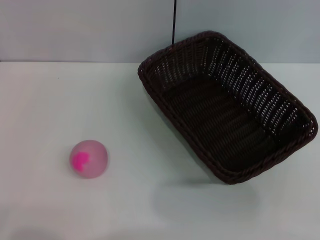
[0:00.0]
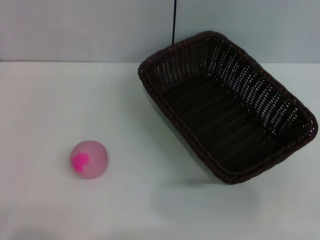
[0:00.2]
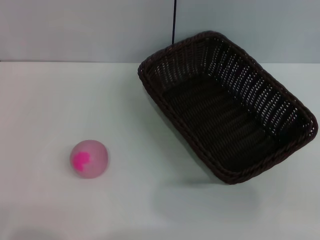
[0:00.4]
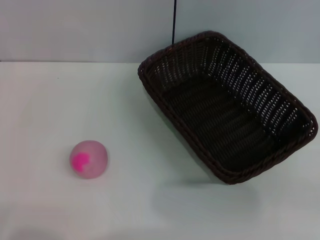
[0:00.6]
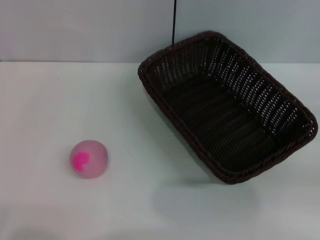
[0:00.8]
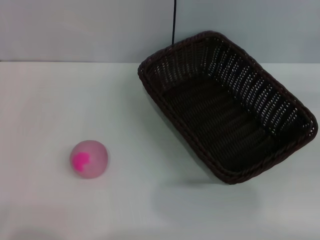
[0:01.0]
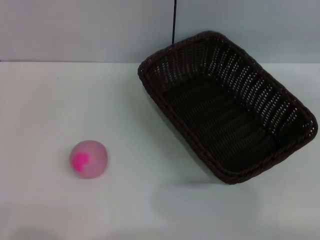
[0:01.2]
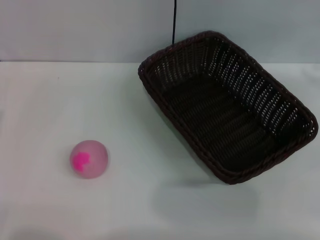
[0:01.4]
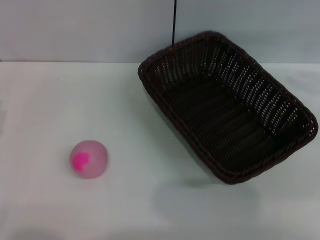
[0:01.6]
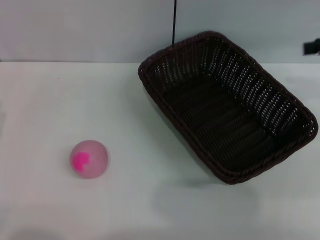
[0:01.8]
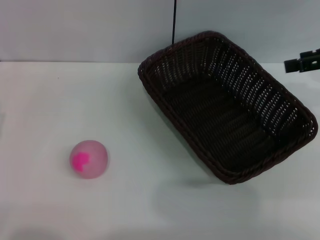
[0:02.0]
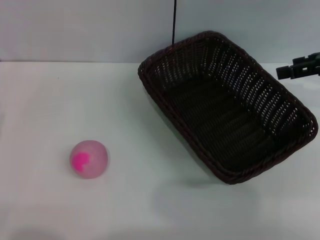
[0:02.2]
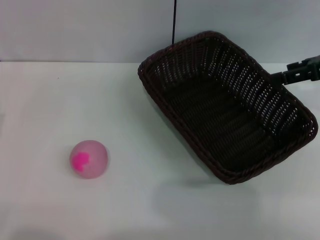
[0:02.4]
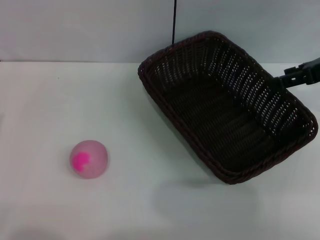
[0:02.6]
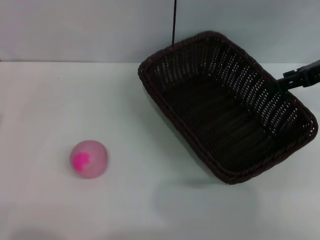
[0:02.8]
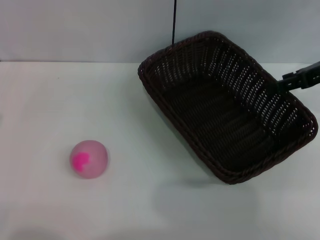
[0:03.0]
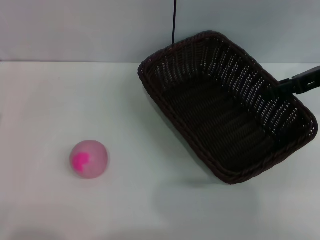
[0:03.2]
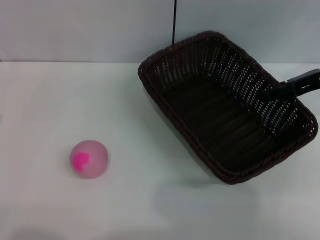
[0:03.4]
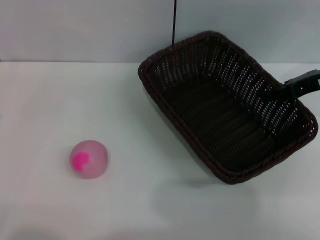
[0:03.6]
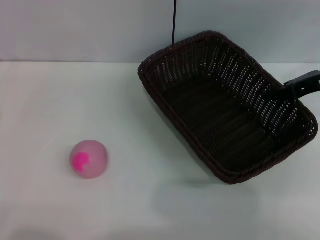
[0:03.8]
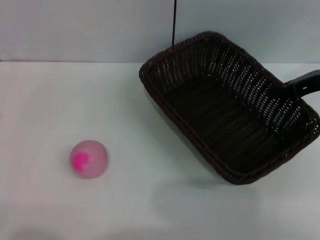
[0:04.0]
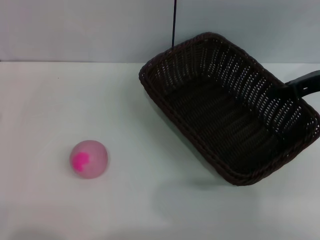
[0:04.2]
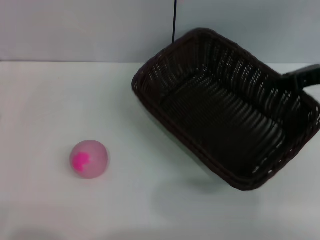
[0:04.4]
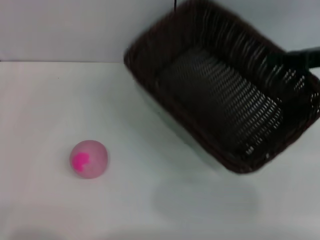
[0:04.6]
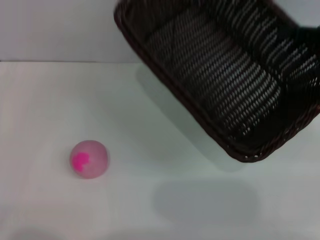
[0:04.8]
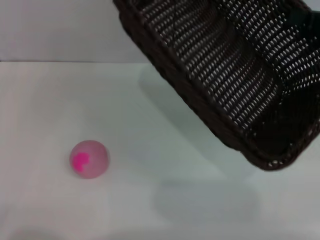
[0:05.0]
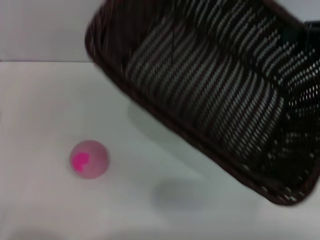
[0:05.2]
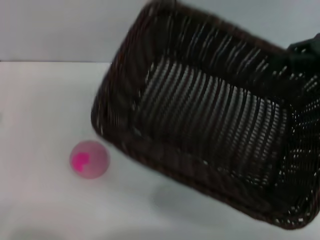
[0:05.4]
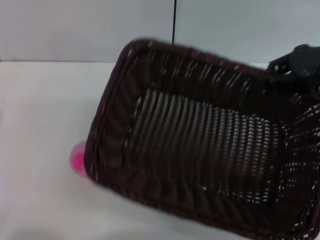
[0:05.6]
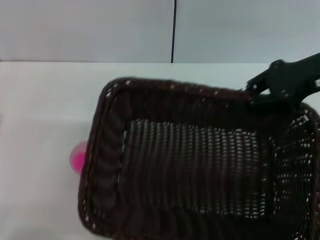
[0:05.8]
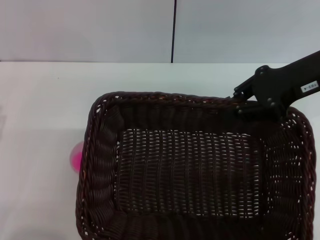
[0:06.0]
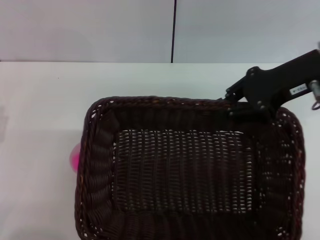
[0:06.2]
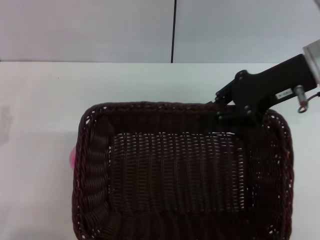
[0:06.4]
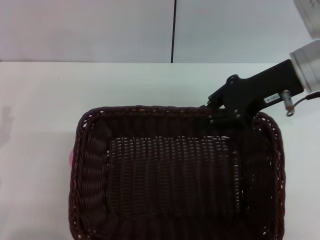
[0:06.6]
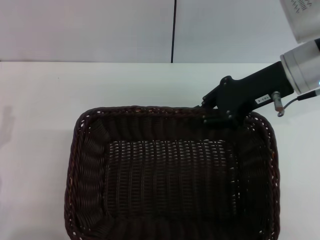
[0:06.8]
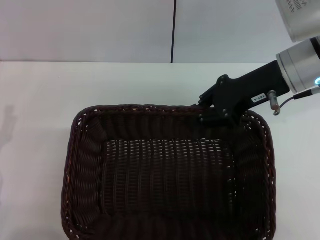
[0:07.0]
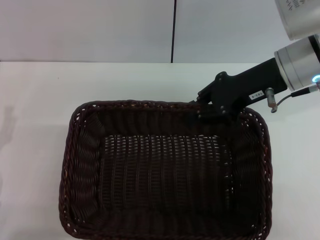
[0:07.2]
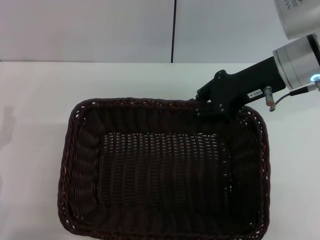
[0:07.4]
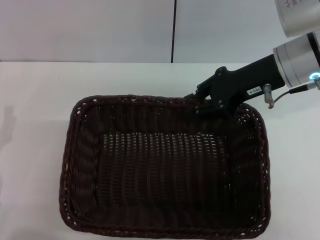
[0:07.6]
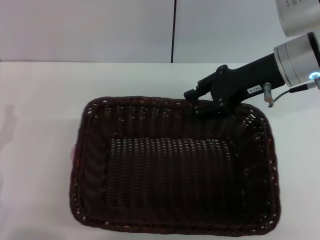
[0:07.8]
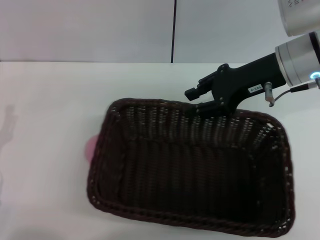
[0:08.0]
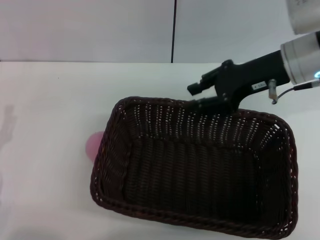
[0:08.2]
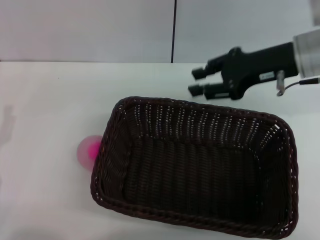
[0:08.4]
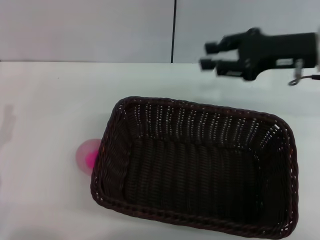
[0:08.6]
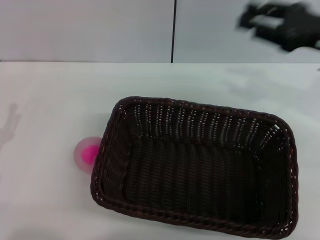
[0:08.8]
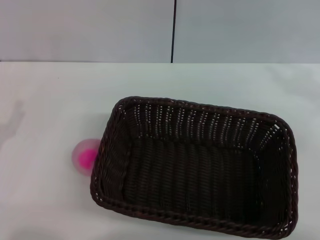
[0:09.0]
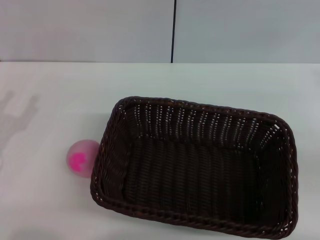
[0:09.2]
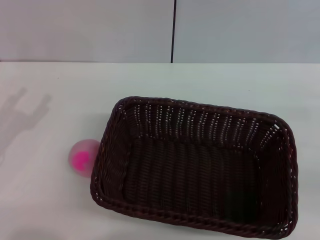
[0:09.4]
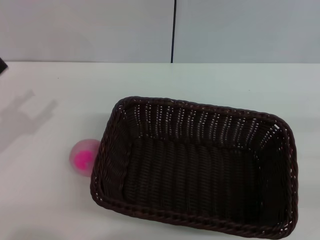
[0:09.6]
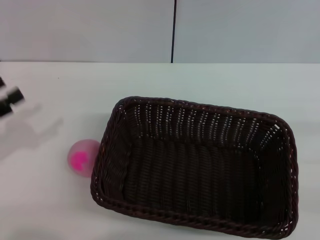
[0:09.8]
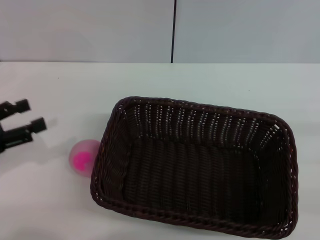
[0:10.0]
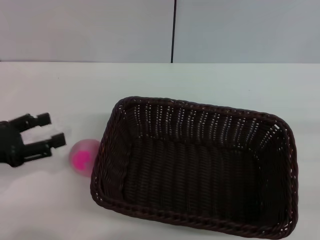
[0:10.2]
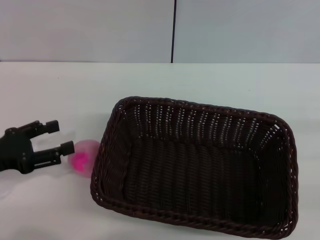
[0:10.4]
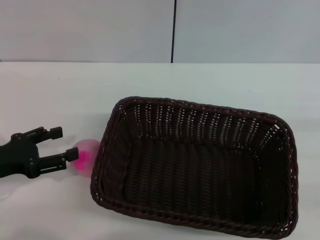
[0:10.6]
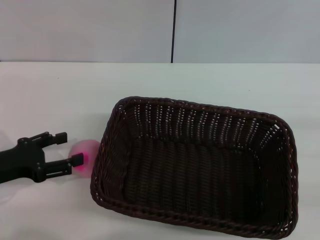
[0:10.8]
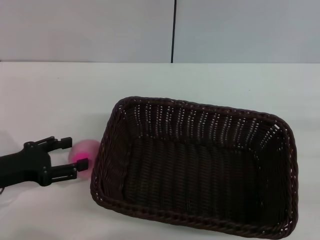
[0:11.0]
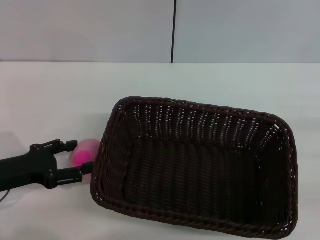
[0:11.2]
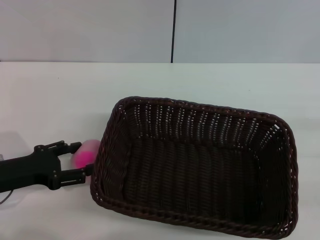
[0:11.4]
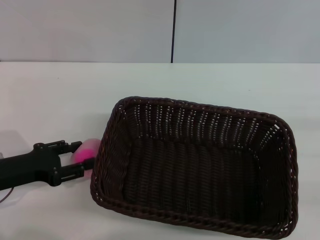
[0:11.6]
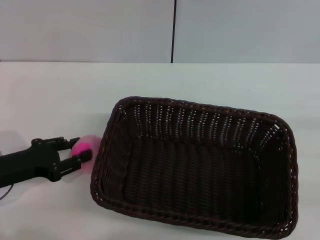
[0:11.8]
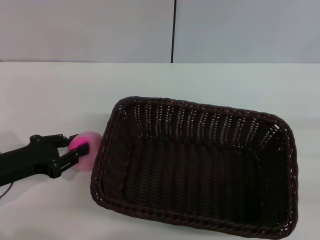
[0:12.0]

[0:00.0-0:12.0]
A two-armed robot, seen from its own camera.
Step, 0:00.0 to 0:04.8: Pick up the dark basket with the right gripper.
Step, 0:05.0 to 0:08.2: Place the dark basket in the center of view with the right gripper.
0:00.0 to 0:01.6: The right gripper is displaced upward and forward by some 25 cm.
0:01.6 to 0:03.0: The right gripper goes approximately 10 cm to the left, and opens.
0:03.0 to 0:04.4: The right gripper closes up.
0:04.4 to 0:06.0: The right gripper heads to the left, covering approximately 5 cm.
0:06.0 to 0:07.6: The right gripper shifts by roughly 5 cm.
0:07.6 to 0:09.0: The right gripper travels to the right and backward by roughly 15 cm.
0:10.4 to 0:12.0: The left gripper closes its fingers.

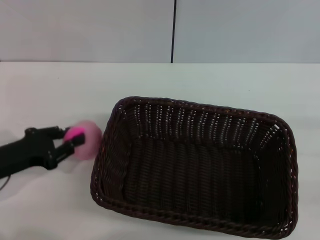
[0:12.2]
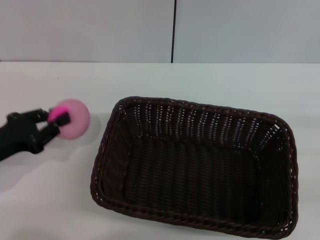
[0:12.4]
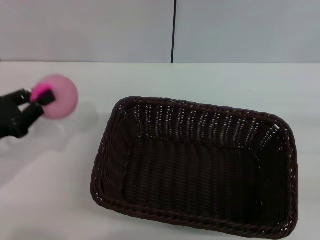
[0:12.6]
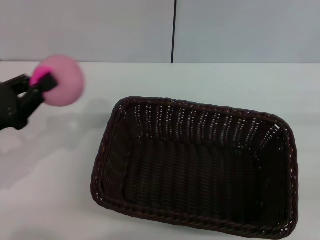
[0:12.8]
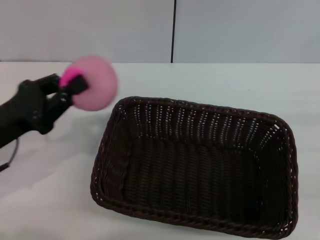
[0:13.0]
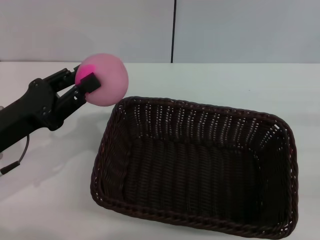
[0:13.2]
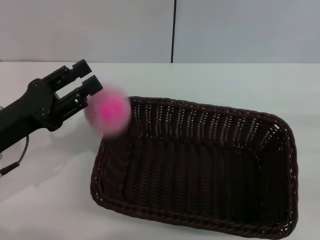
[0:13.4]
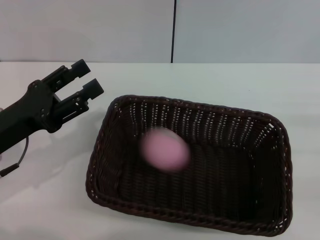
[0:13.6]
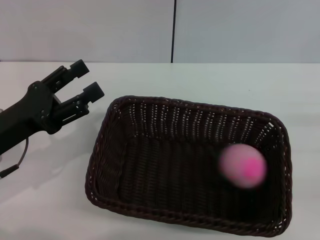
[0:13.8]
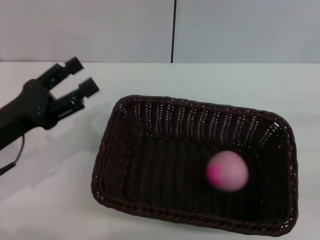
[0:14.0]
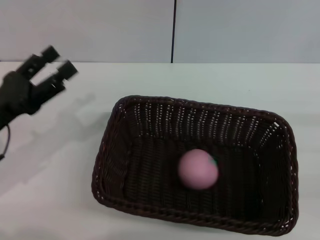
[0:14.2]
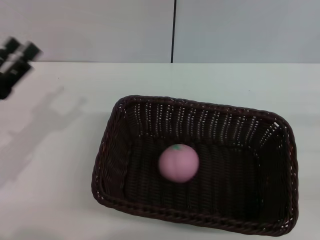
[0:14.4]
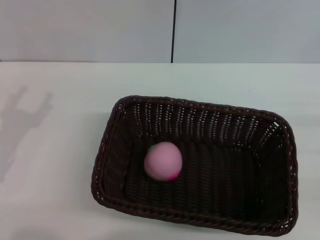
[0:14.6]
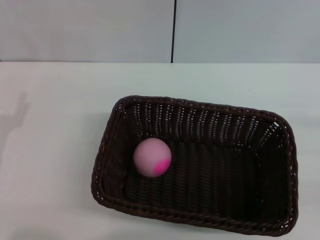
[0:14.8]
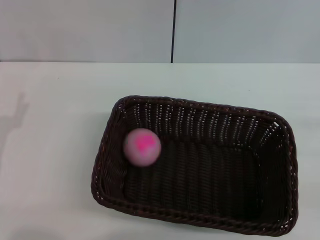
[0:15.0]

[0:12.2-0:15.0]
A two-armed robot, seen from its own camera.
Step, 0:12.8 to 0:13.8: Place the peach into the basket with the left gripper.
0:12.2 to 0:13.6: The left gripper ends up about 5 cm from where it was, and opens its fingers.
0:13.6 to 0:15.0: The left gripper shifts by some 5 cm, and opens up.
